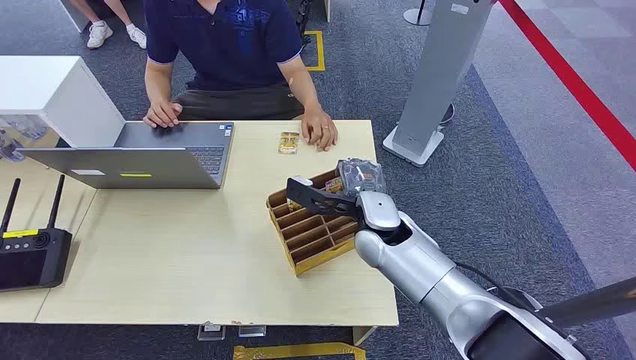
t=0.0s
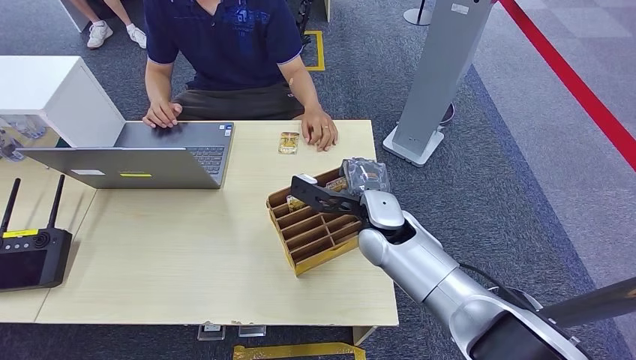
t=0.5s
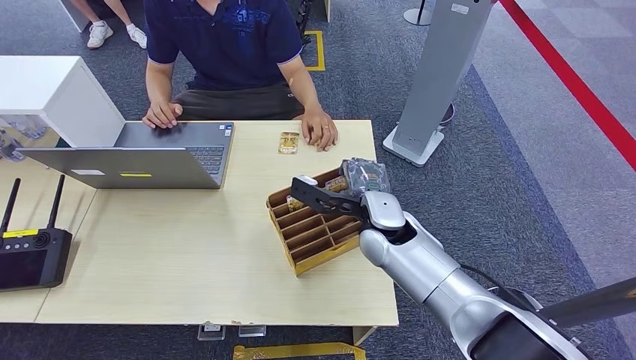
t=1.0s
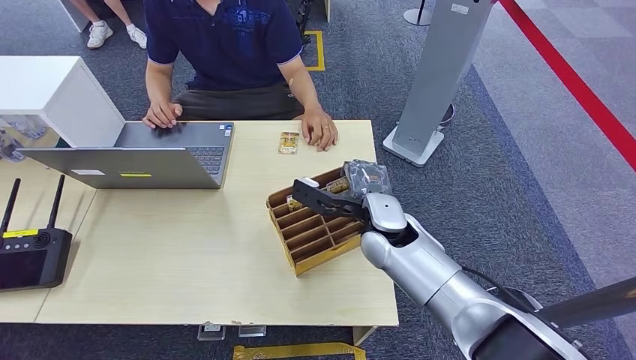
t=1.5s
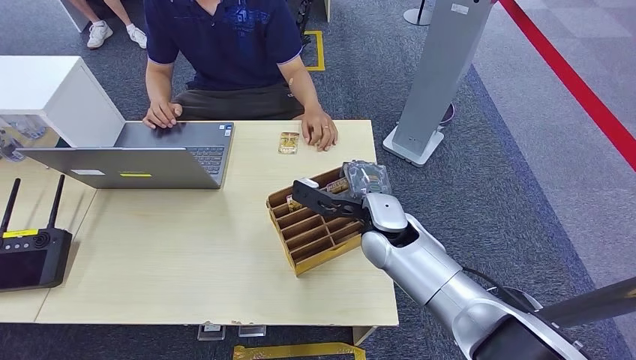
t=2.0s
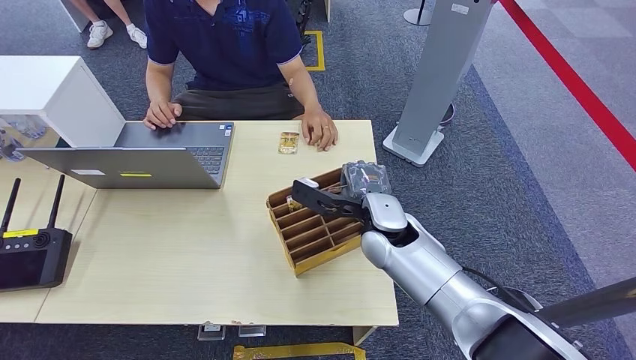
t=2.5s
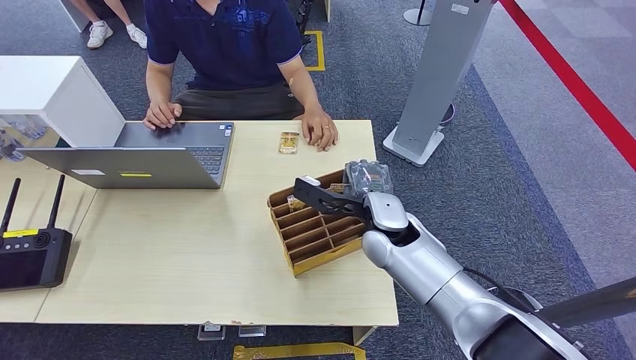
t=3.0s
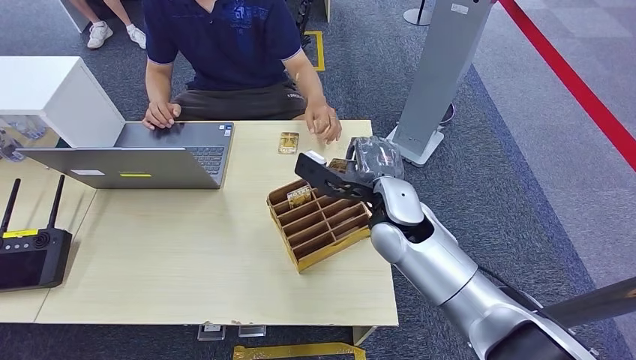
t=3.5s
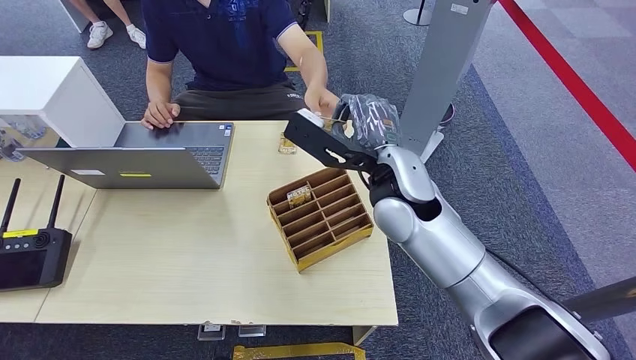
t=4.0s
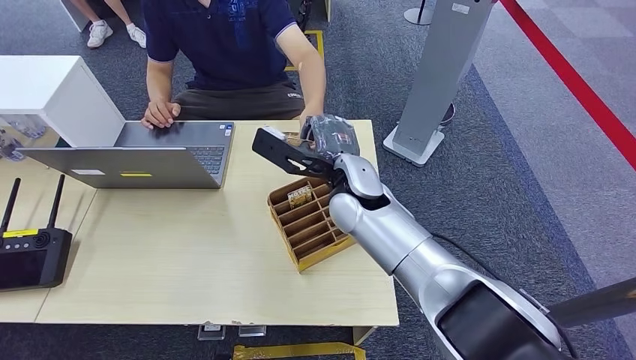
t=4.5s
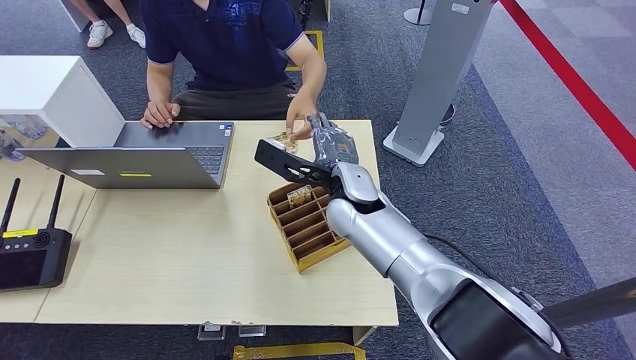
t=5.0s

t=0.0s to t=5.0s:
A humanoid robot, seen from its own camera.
Step, t=0.0s to t=3.0s: Pick up the key card from the card box.
Step, t=4.0s to t=5.0s: Hand the key card to the target.
t=2.5s to t=5.0s: The right hand shifts about 5 cm to the left.
